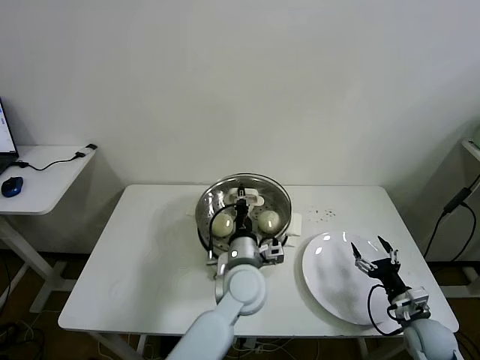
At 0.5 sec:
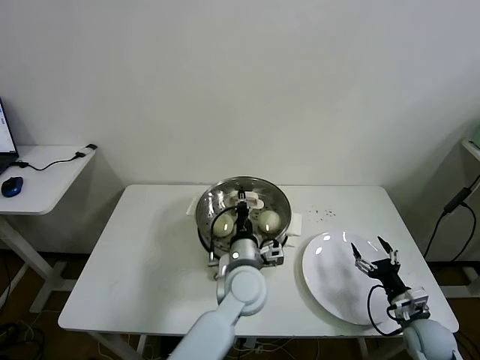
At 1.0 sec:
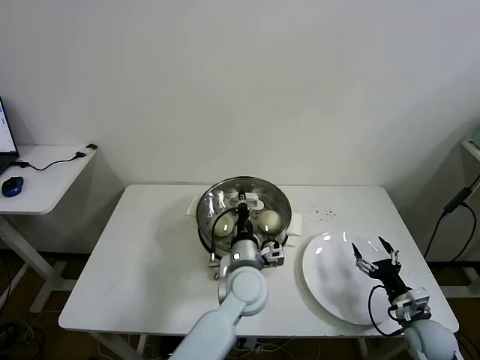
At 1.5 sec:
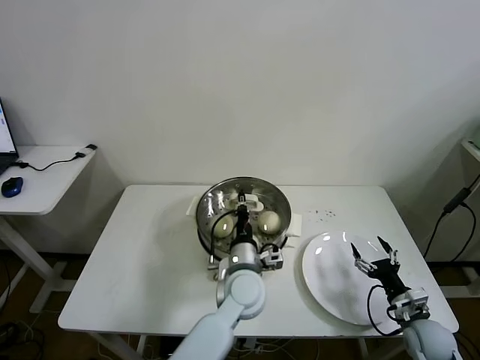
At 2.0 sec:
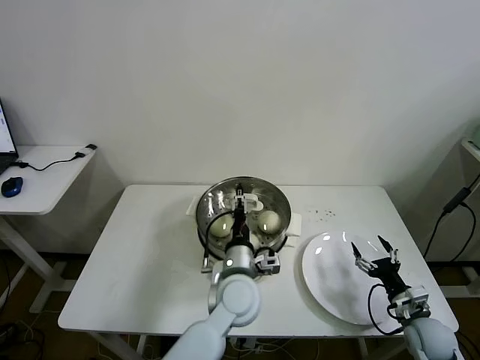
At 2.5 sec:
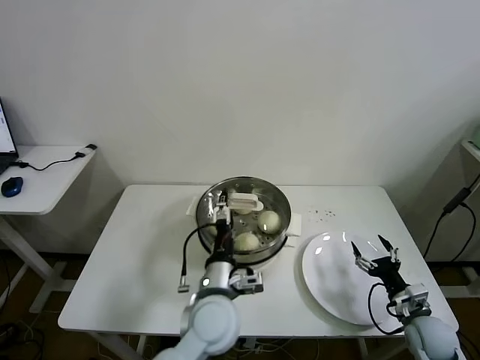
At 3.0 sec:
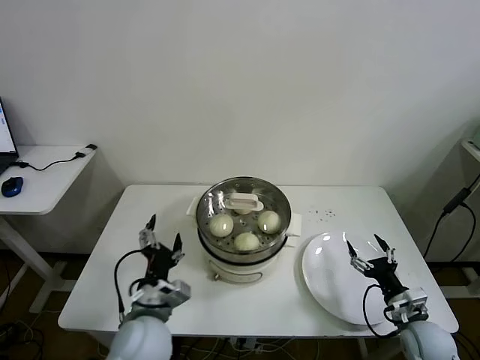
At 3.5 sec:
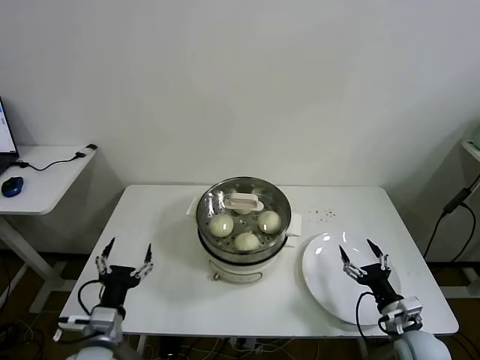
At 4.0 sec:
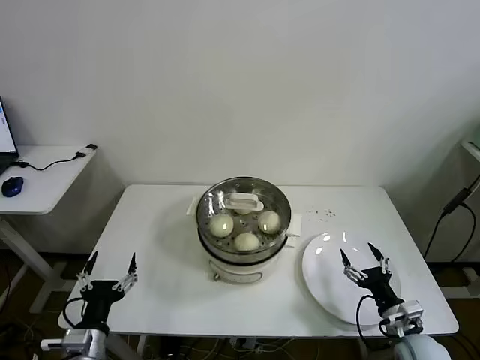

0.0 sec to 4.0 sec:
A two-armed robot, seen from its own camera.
Task of the whole recording: take steamed baozi put them in steamer then cover it.
Step, 0.0 sec to 2.0 sec: Place the pot lid on the steamer with left gripper.
0.0 sec to 2.0 sec: The left gripper opens its fingers.
2.0 sec to 4.0 sec: The left gripper travels to the left and backward by some 35 cm, and opens its fingers, while the right gripper ends up approximately 5 cm from where it was.
